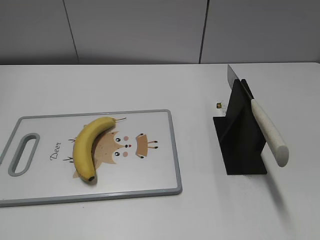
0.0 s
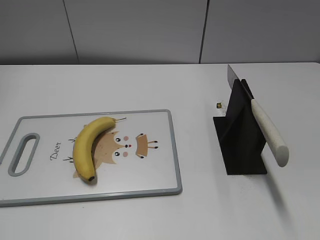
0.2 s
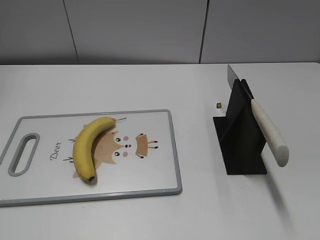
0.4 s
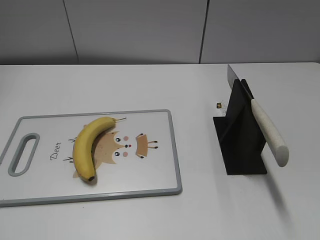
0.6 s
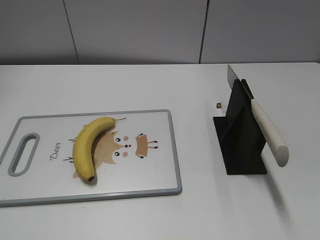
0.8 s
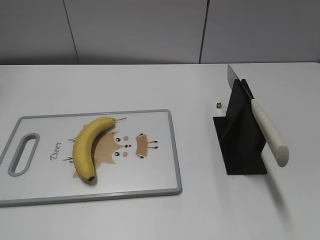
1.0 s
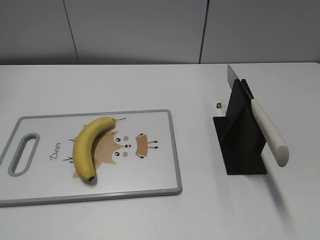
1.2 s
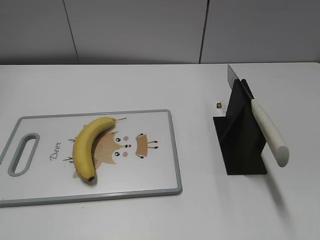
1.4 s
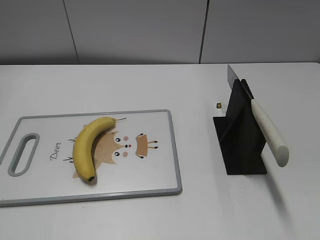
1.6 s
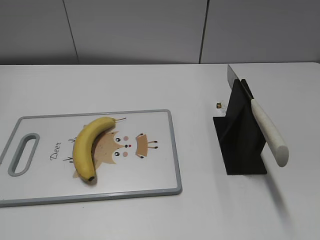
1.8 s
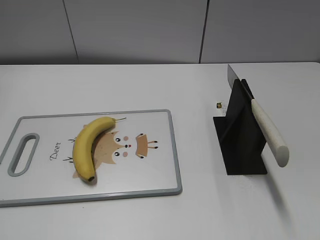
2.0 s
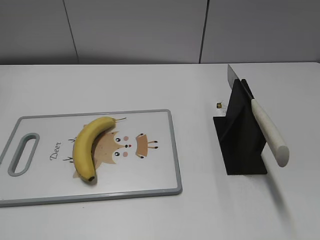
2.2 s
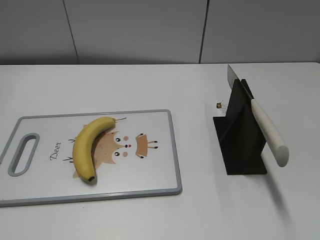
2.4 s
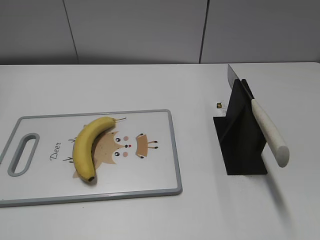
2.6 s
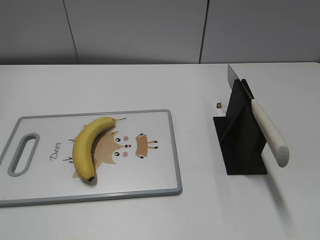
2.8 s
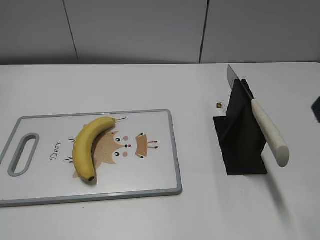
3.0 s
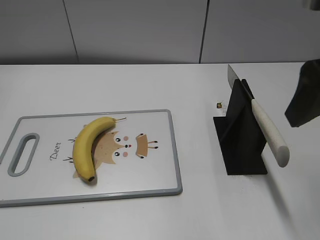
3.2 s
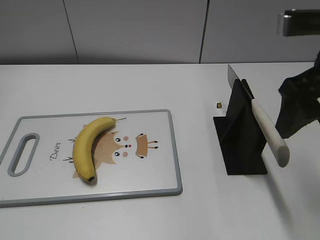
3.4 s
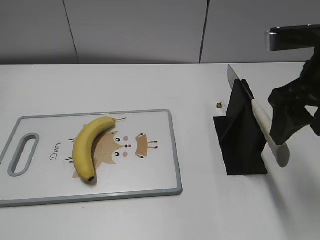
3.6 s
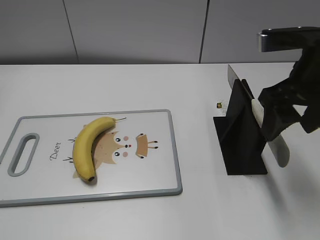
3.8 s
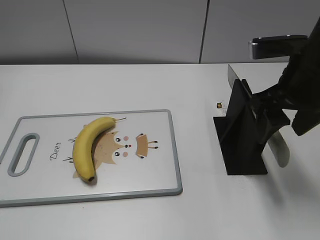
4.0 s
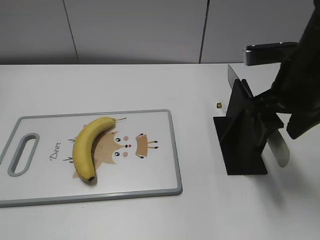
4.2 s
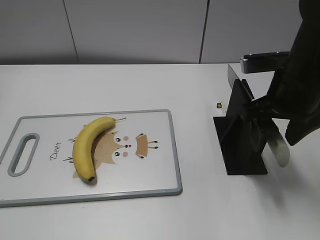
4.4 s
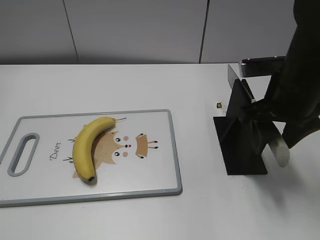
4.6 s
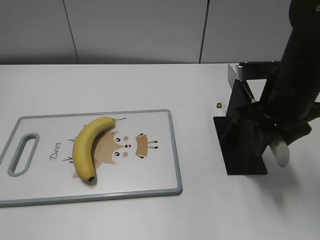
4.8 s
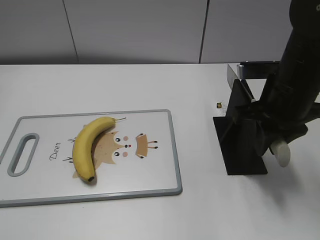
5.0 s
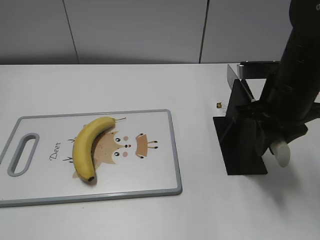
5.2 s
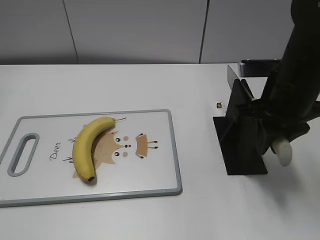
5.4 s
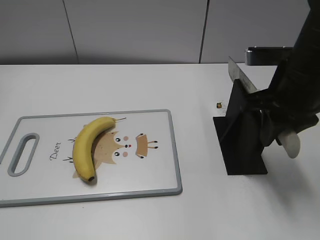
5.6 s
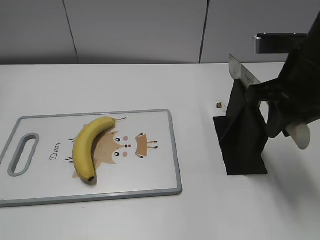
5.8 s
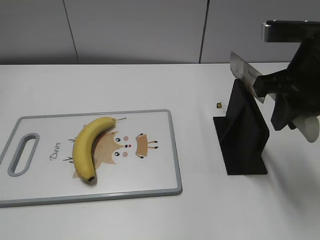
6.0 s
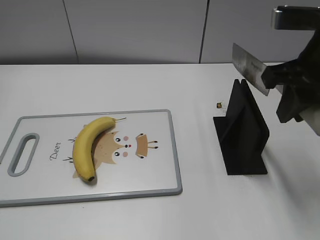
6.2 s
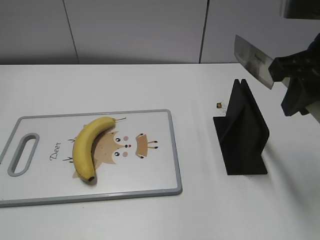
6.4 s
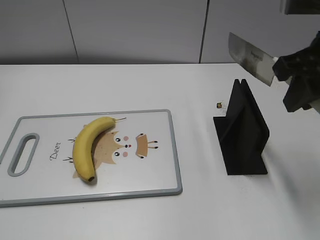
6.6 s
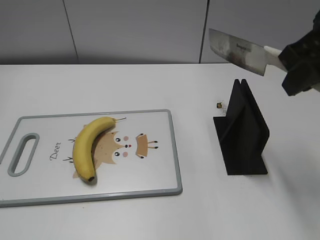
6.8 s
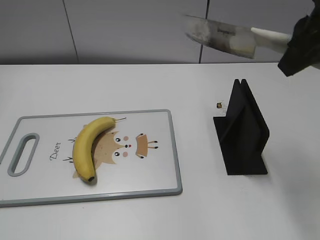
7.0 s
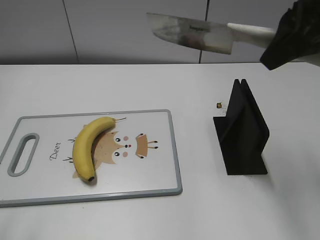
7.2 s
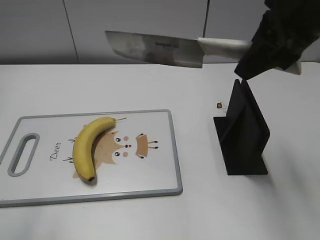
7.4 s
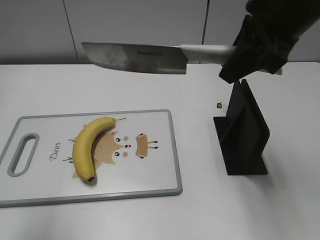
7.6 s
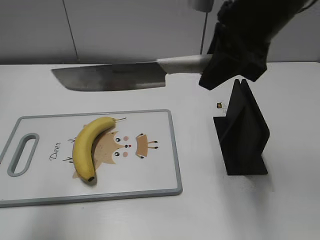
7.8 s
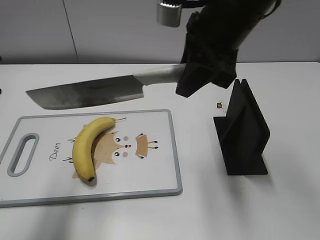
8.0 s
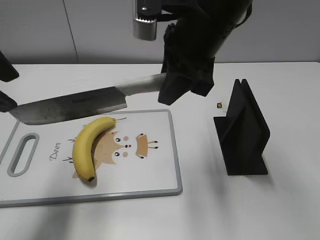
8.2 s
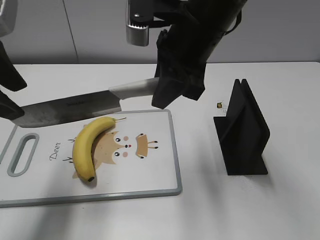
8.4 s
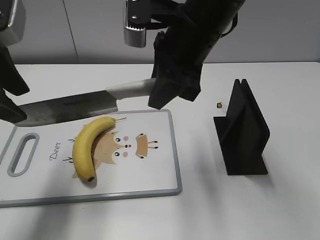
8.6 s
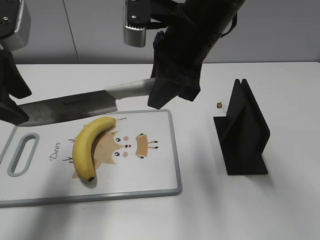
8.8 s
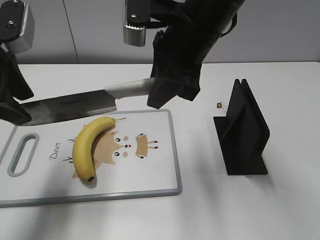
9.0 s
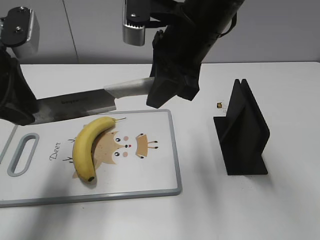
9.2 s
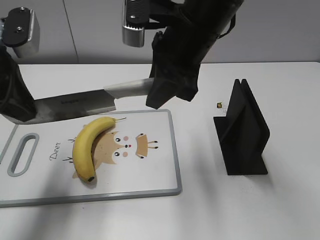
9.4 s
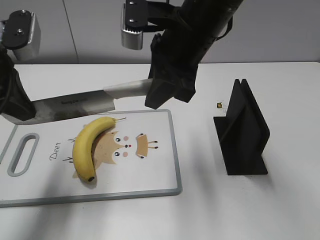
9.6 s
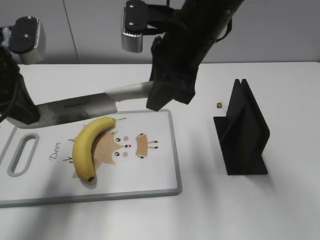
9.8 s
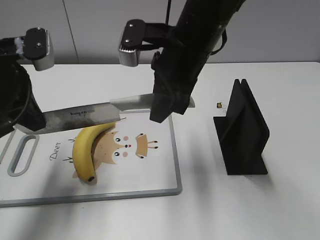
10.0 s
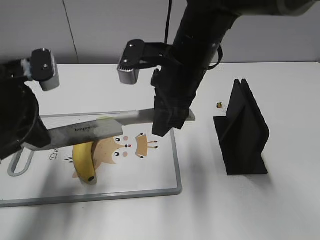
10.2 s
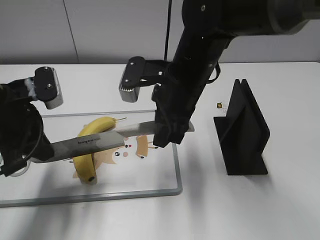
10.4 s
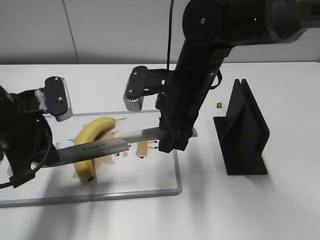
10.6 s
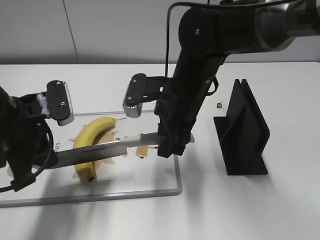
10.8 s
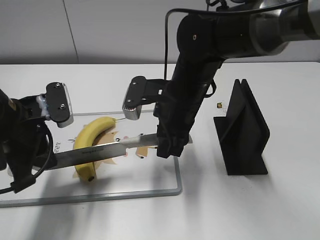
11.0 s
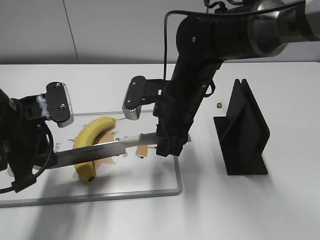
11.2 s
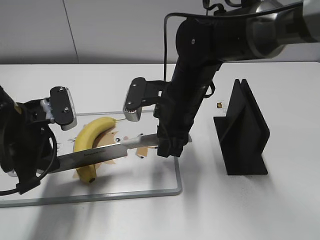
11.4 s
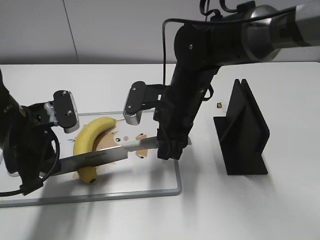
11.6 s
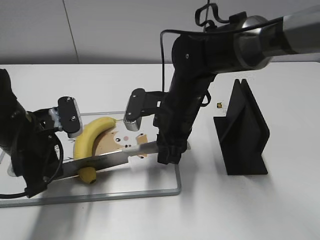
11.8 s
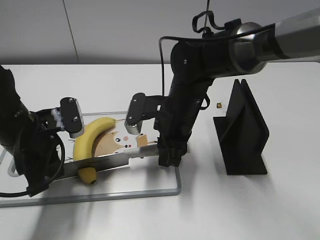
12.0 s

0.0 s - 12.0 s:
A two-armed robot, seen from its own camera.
Task of the whole recording: cut banana.
Step, 0.0 s - 6.0 s: Grab the knife handle with your right hand.
Step, 6.4 s - 11.8 s: Lift the knife with your right hand.
3.0 s - 4.4 s: The right gripper travels downward and forward by approximately 15 cm.
4.4 s - 6.0 s: The right gripper shifts by roughly 5 cm, and closes up.
6.0 s - 7.6 s: The right gripper is displaced upward by roughly 5 cm. The left gripper moves forward and upward, roughly 20 cm.
7.6 s - 9.0 s: The left gripper travels forward and downward by approximately 15 cm; the right gripper moves to the left and downward, approximately 10 cm.
9.0 s - 10.4 s: Both grippers travel together downward, about 10 cm. The left gripper closes its fingers.
10.4 s - 12.0 s: Both grippers travel together downward, approximately 5 cm.

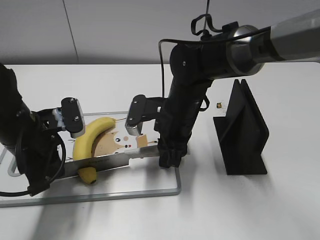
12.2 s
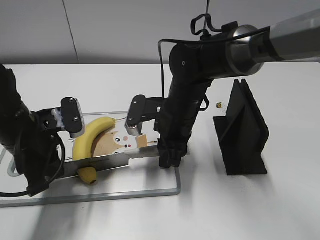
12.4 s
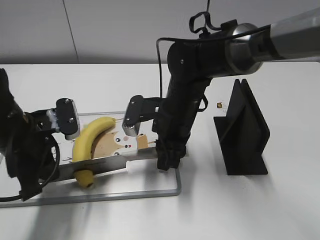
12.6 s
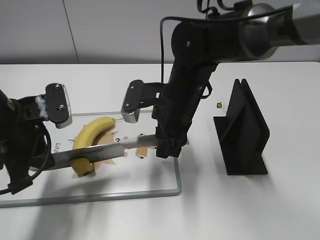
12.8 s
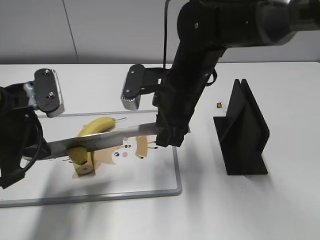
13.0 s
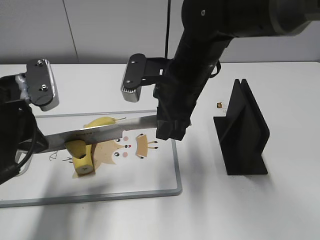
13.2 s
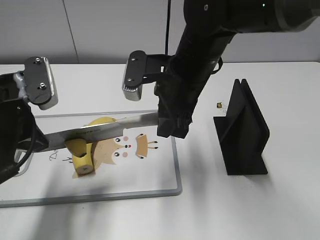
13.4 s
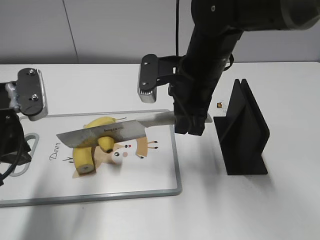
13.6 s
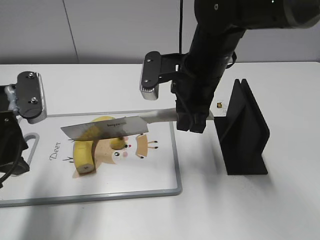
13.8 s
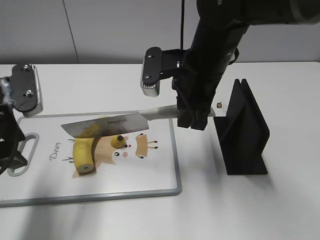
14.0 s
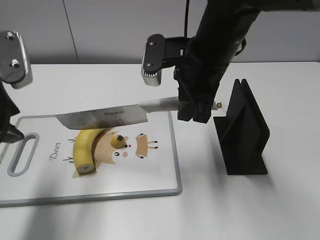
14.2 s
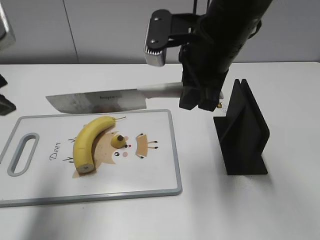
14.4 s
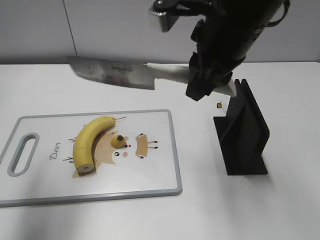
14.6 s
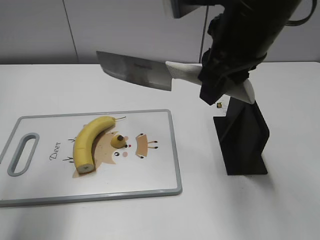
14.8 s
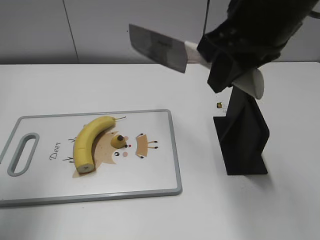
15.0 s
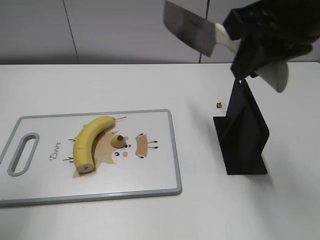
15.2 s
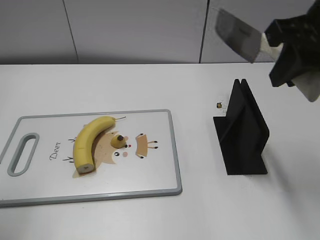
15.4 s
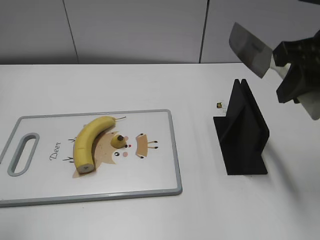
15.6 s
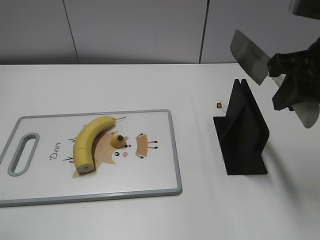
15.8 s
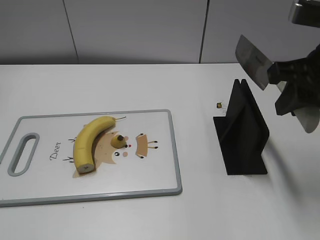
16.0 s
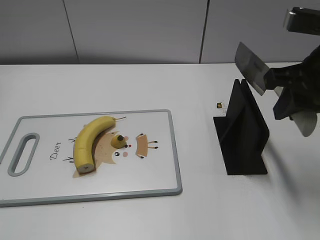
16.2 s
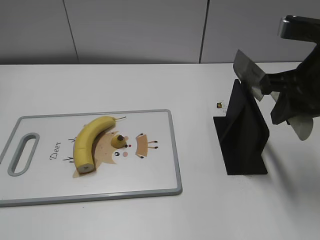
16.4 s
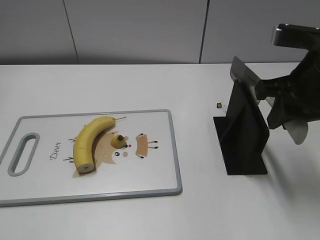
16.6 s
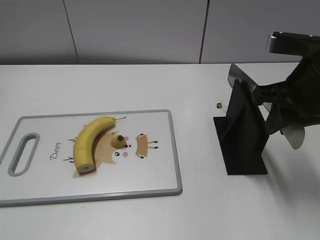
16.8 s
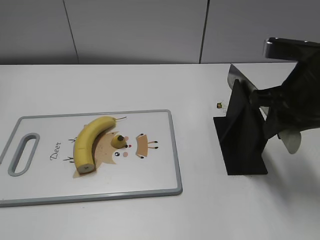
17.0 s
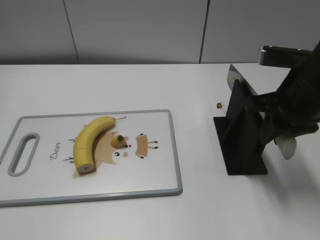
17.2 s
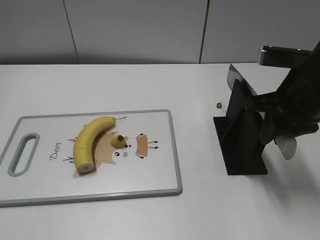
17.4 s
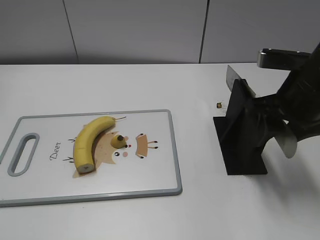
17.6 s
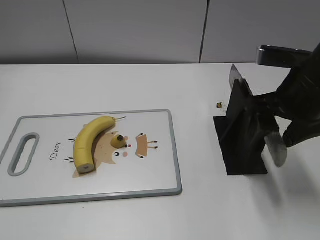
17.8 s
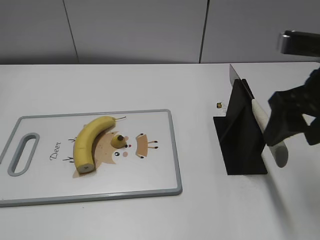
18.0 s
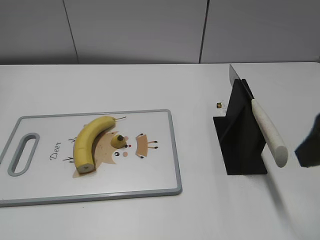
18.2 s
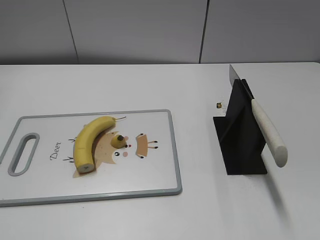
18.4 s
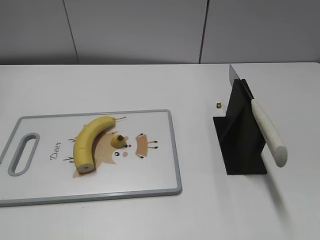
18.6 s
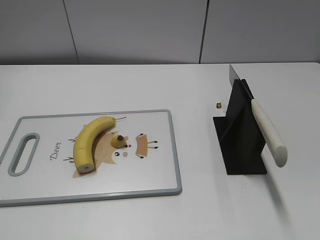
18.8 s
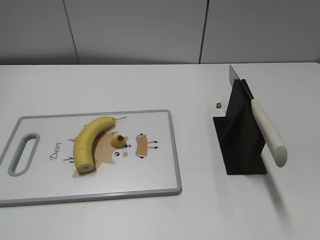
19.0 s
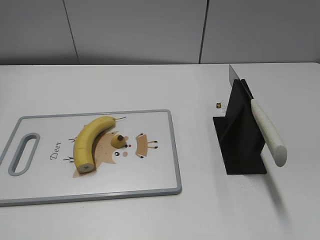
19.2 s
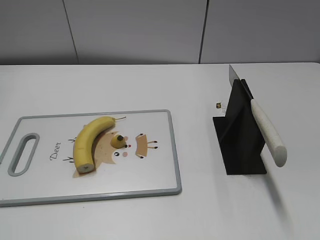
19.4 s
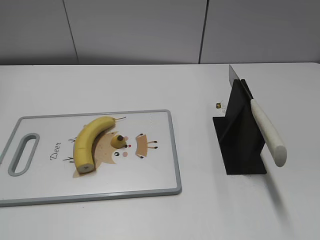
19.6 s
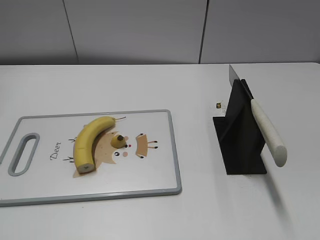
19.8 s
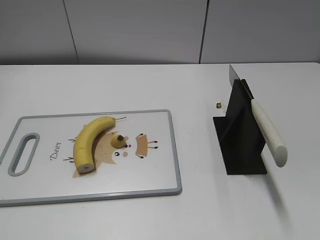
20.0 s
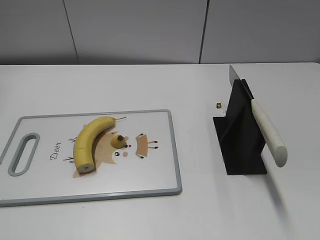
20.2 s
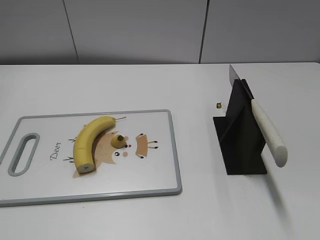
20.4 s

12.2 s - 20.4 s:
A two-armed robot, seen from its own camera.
Task of the whole recording: cut banana.
Step, 12.2 s - 15.0 s: Cut the banana with your right hand.
Step, 15.2 s - 16.6 s: Lift the knife with your right hand.
Step, 16.8 s - 20.4 s: Place the knife on the storage rack with your right hand.
12.2 s - 13.8 s: The grippers both shift upward by some 10 cm. The left gripper opens up.
13.8 s - 15.4 s: The left gripper goes some 15 cm upward, to the left and backward. Meanwhile the right gripper moves upward, to the right and backward, about 20 cm.
15.4 s - 17.2 s: The right gripper heads downward, covering roughly 10 cm.
17.2 s - 18.8 s: The right gripper moves backward, about 25 cm, and opens.
